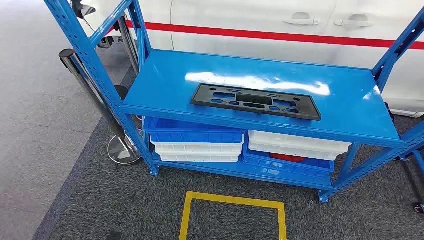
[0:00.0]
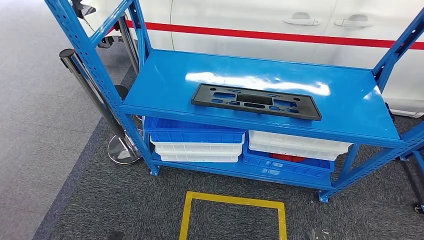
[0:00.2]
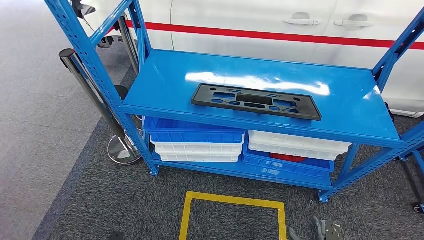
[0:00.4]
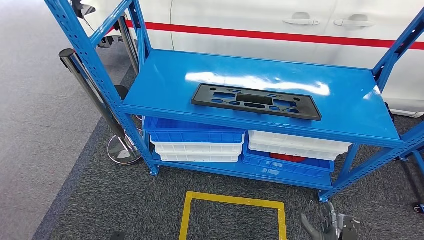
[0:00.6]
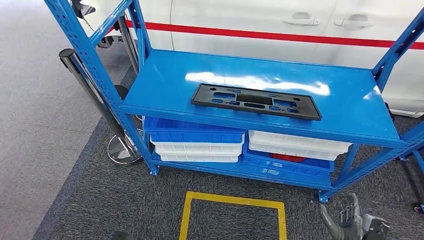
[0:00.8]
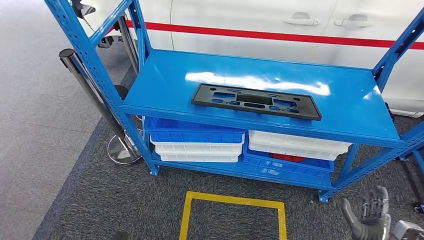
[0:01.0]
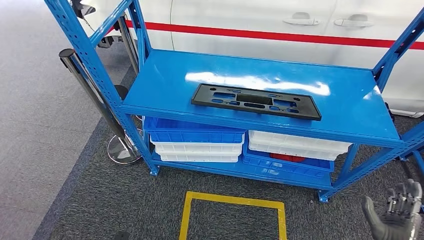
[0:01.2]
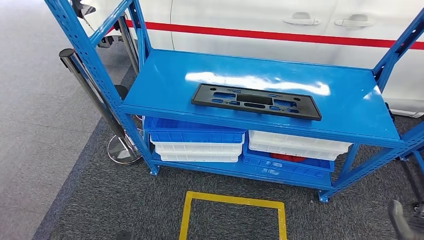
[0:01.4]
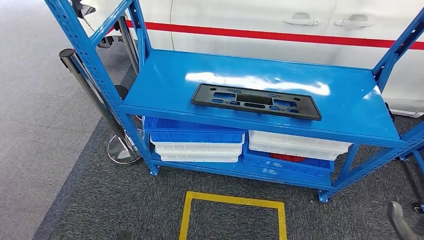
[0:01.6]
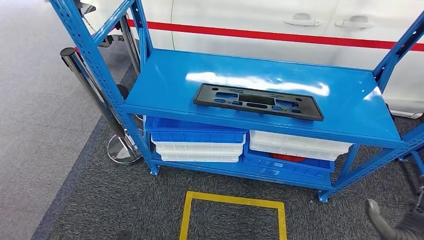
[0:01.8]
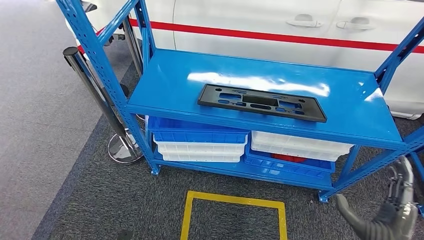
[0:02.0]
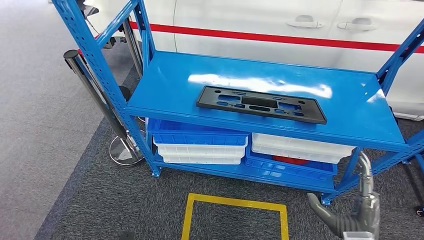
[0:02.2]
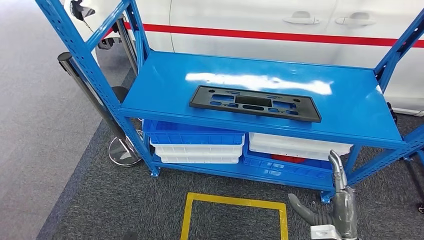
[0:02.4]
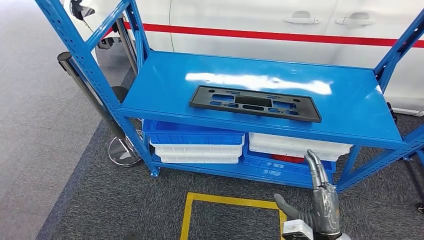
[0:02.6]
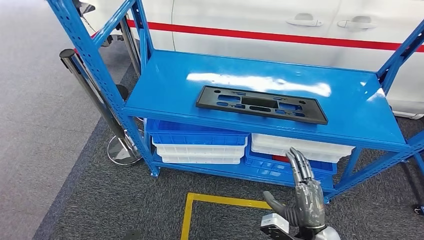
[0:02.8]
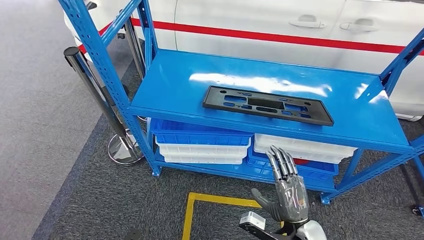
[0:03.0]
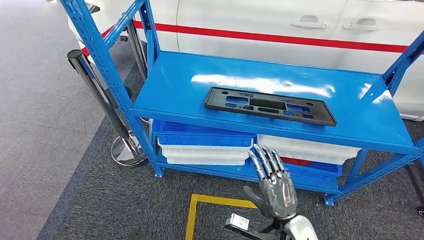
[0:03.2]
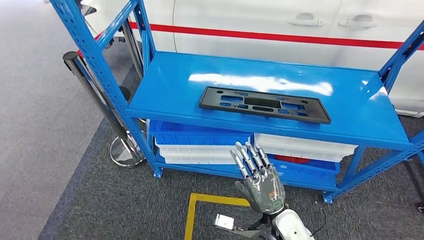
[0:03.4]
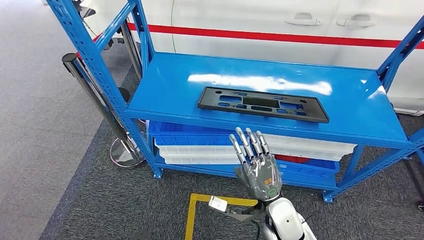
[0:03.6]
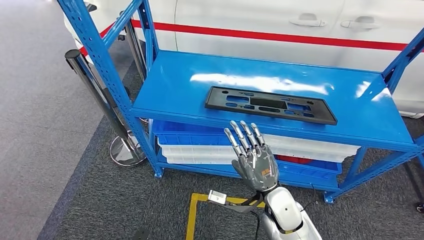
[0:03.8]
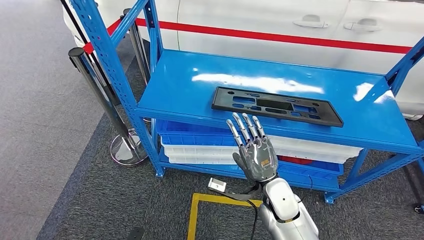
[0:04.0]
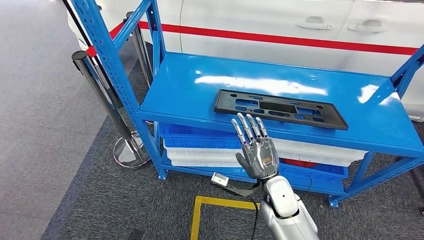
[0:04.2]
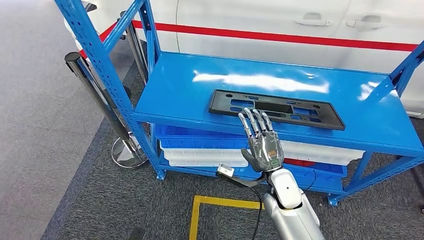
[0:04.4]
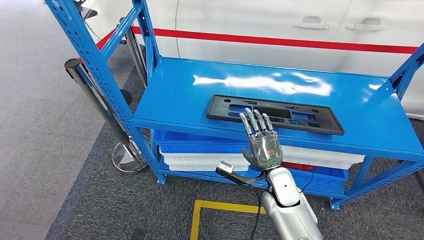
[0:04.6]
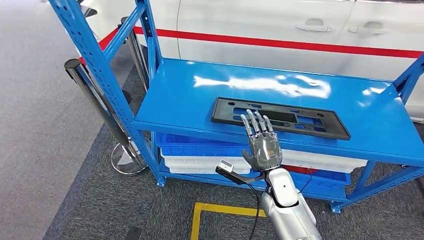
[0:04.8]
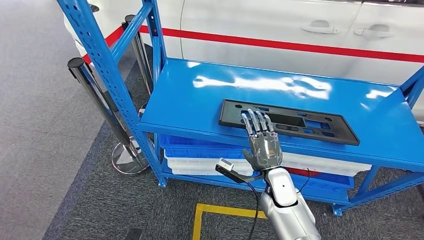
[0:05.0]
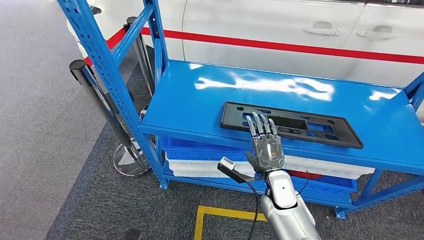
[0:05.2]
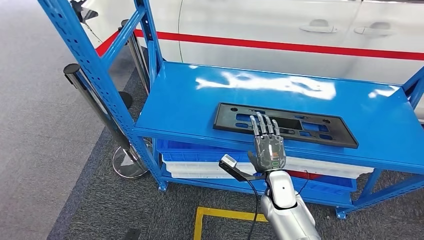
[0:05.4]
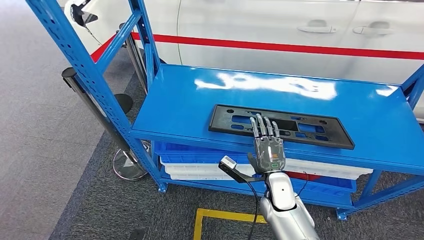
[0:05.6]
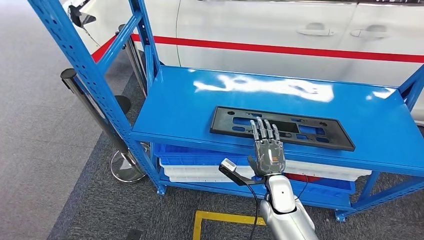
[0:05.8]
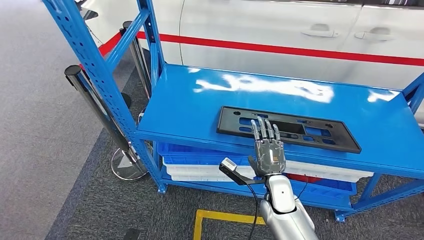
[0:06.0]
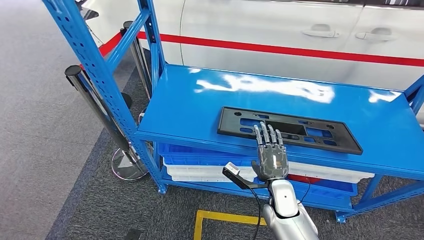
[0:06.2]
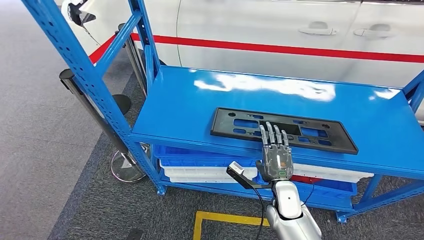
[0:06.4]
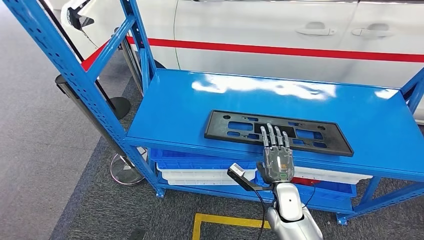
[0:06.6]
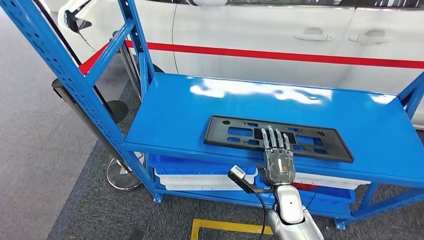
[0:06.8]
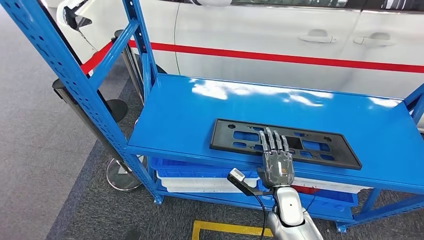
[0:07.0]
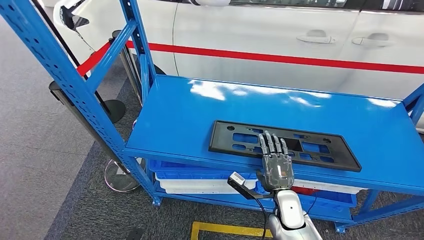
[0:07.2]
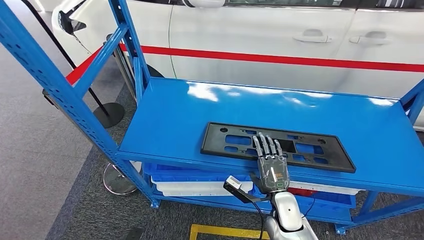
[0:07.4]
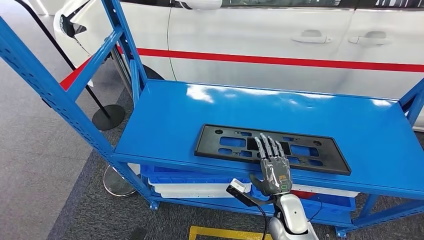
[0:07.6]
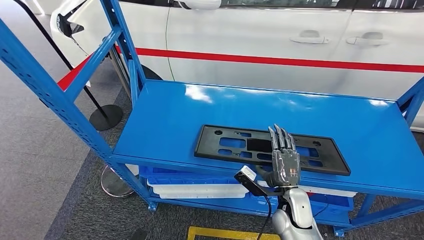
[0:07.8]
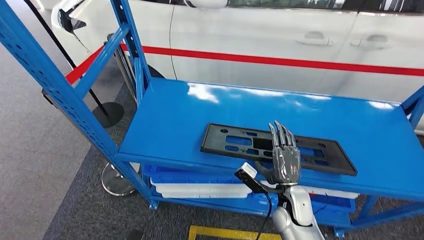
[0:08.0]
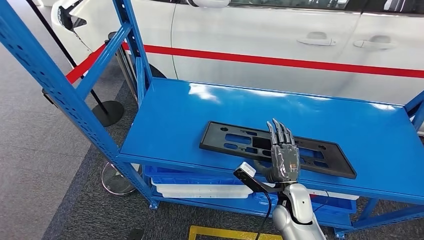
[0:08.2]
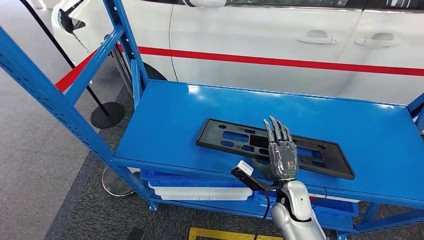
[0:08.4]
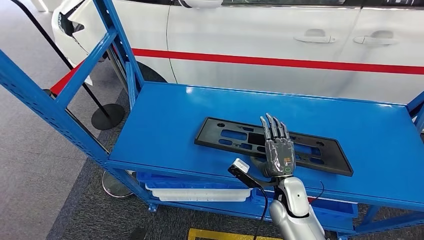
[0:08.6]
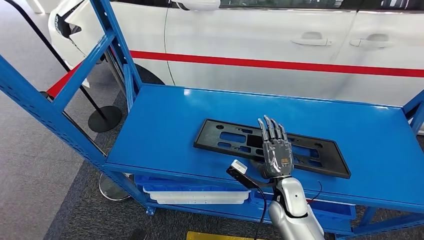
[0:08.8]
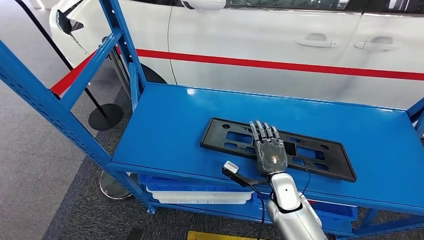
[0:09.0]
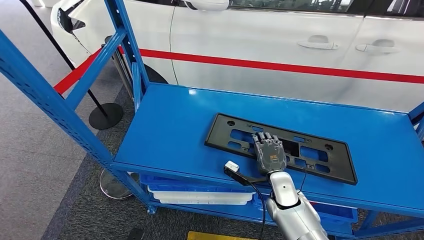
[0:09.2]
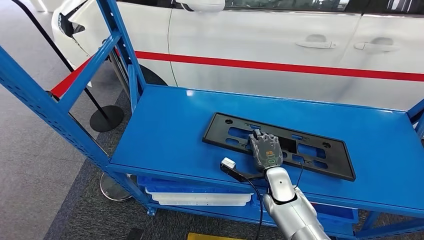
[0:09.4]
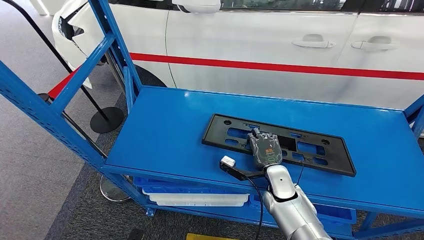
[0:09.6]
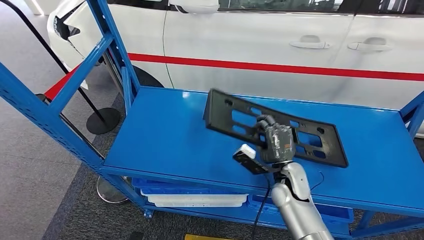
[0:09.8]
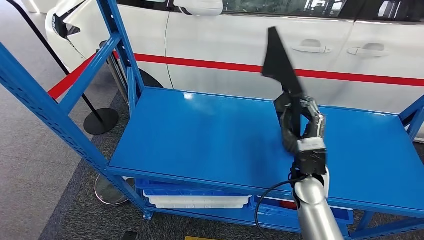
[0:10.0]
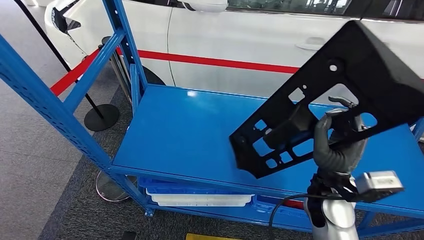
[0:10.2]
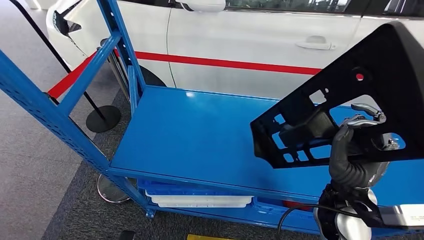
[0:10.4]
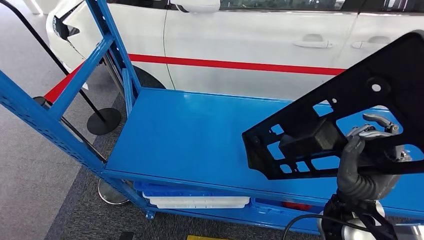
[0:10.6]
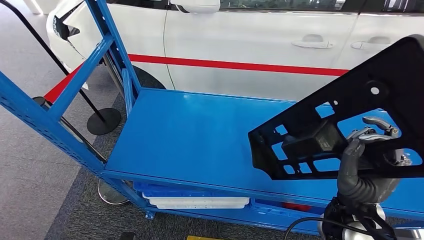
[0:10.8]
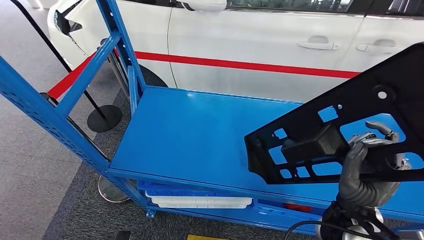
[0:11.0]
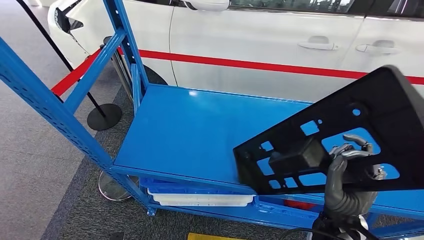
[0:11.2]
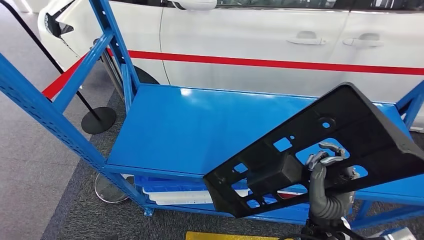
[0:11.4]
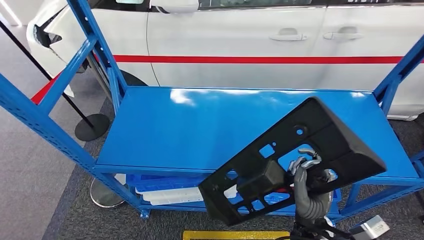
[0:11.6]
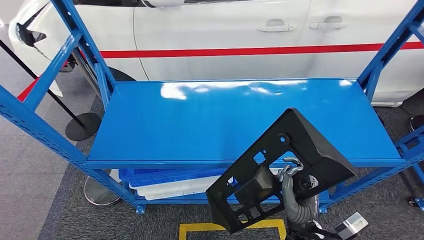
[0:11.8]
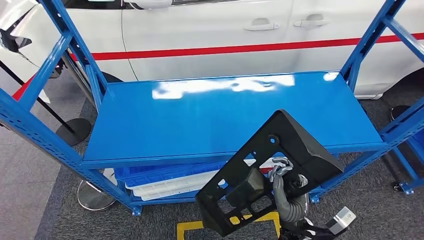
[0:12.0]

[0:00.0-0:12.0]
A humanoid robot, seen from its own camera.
Step, 0:00.0 to 0:12.0: Pick up the large material from the shelf.

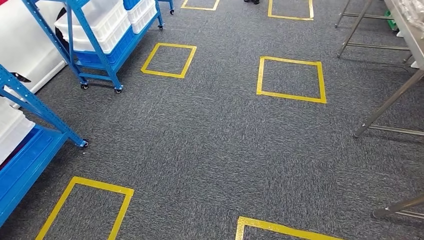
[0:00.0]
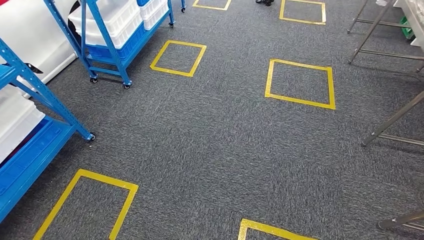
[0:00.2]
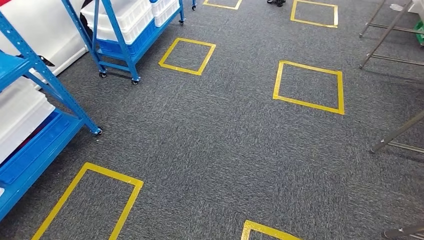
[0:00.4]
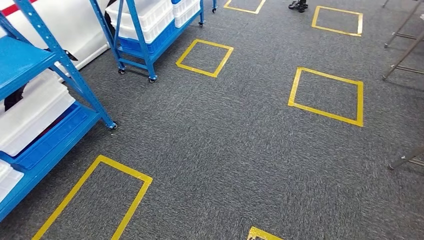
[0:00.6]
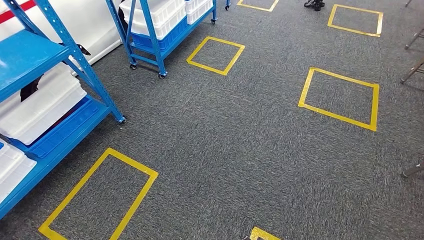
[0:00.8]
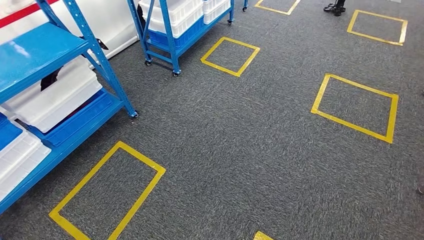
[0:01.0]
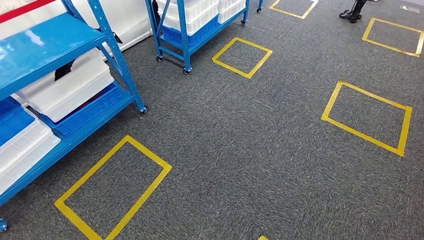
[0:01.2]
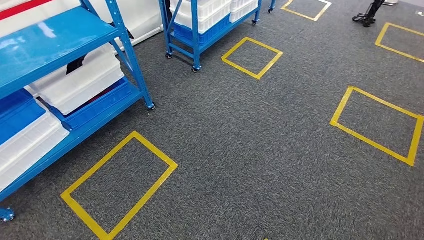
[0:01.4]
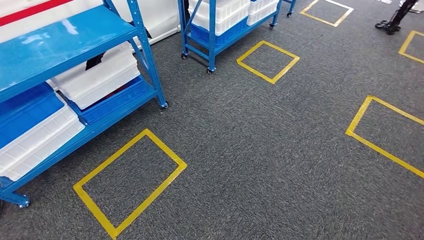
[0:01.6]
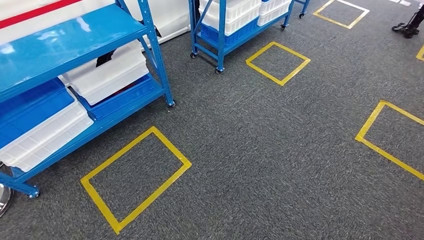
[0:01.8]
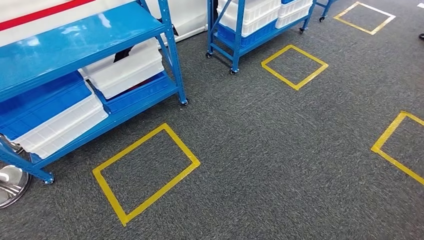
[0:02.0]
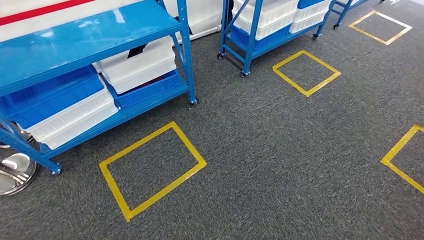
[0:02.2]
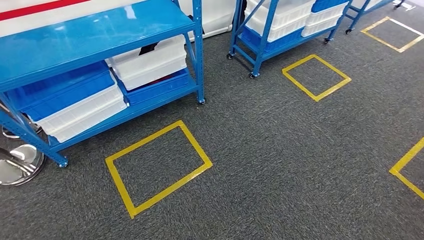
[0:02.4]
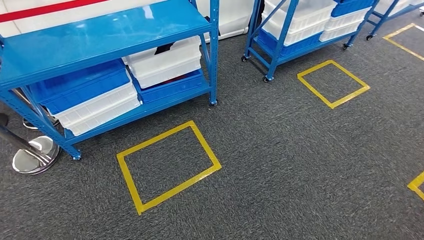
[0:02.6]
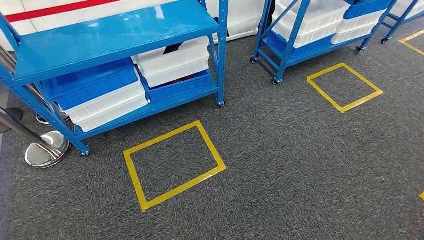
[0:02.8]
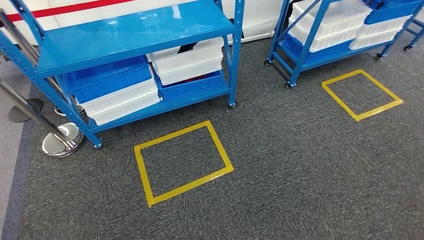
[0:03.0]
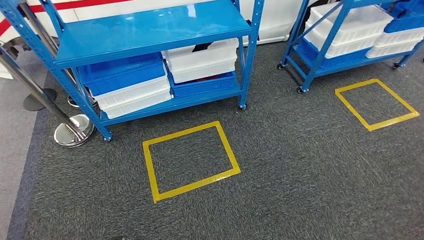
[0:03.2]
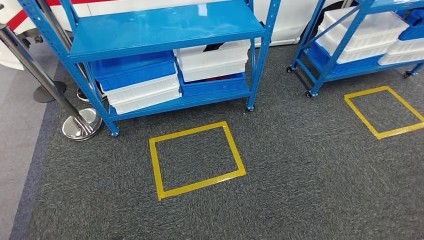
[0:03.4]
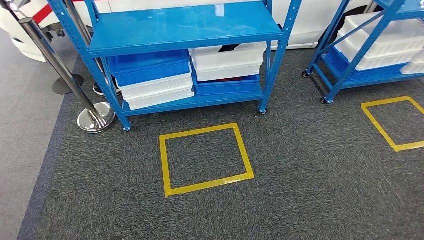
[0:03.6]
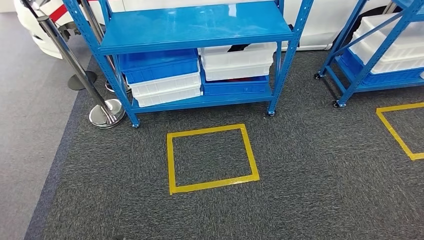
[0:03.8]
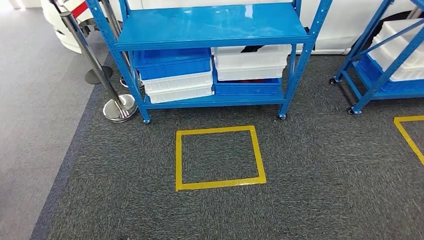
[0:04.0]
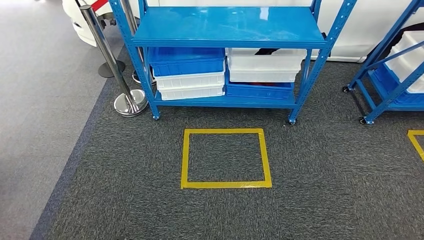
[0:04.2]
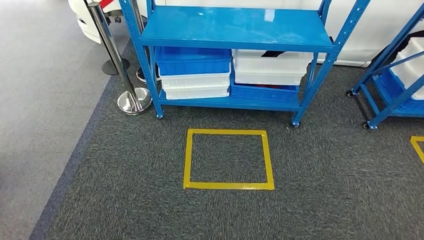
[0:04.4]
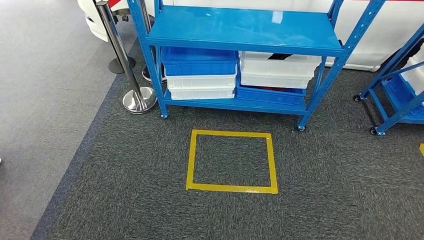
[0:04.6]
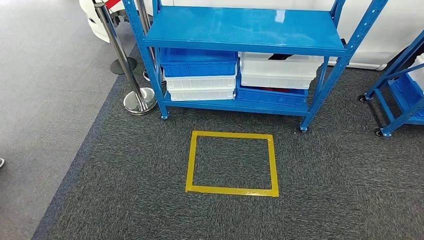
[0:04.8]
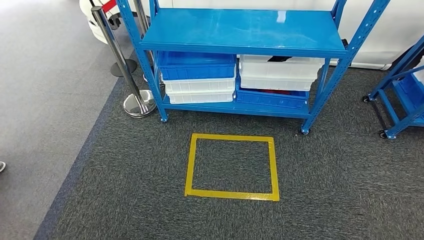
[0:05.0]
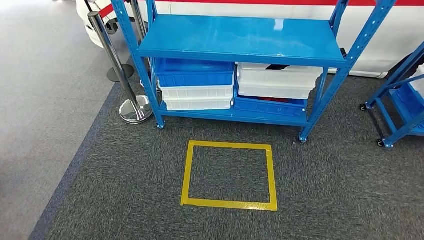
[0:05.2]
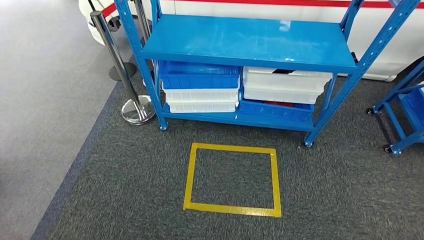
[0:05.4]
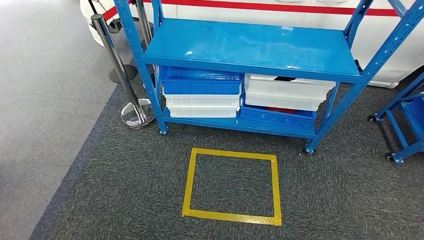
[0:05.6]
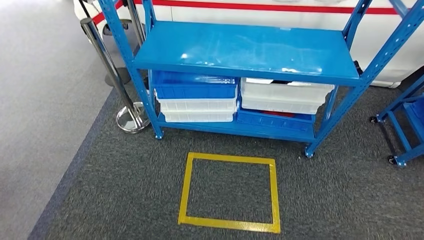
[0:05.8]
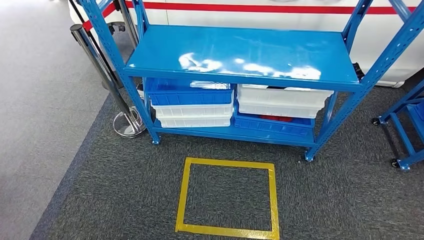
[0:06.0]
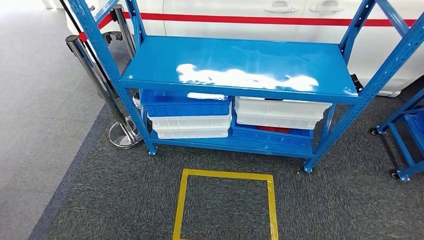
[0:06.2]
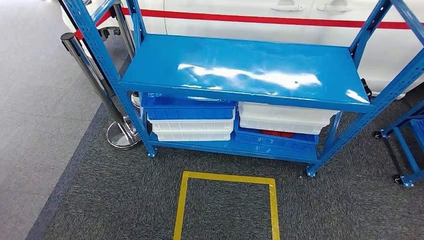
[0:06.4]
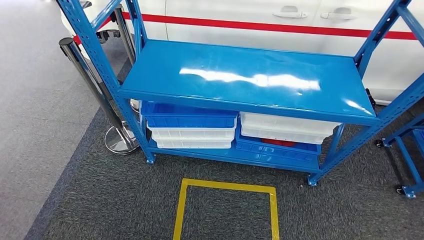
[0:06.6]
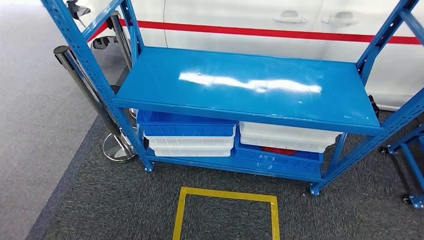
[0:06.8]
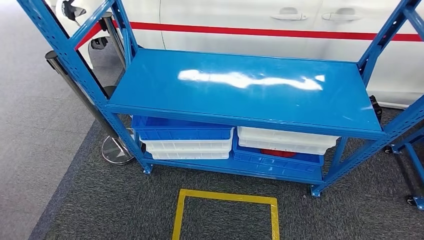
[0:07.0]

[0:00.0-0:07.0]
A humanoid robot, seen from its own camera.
Step, 0:00.0 to 0:07.0: Return to the initial position at the shelf.
